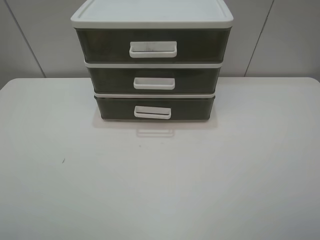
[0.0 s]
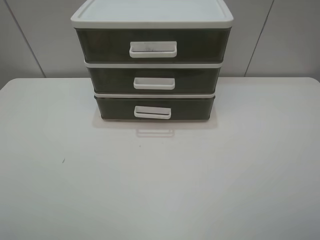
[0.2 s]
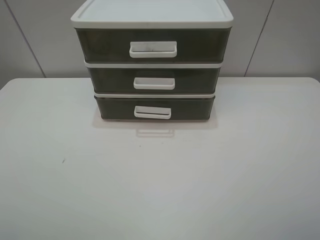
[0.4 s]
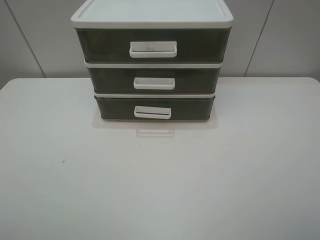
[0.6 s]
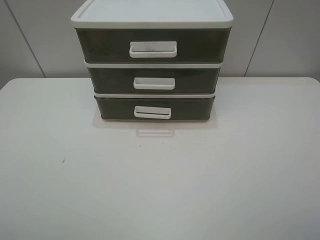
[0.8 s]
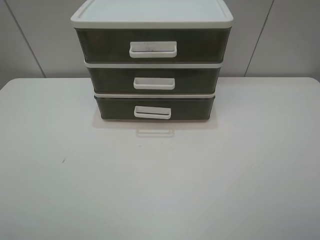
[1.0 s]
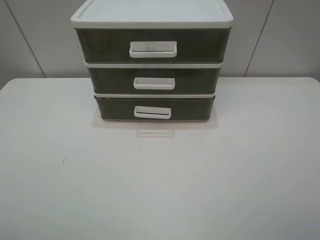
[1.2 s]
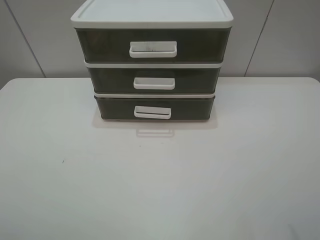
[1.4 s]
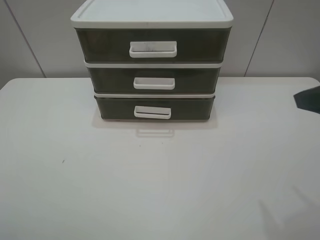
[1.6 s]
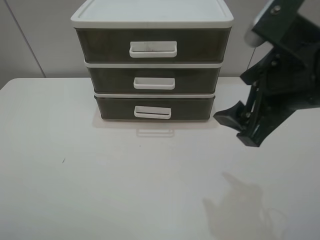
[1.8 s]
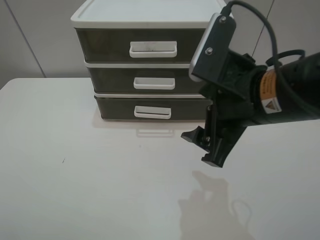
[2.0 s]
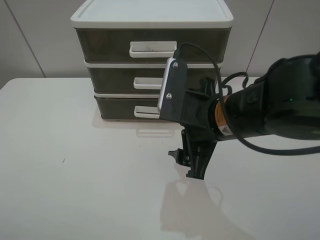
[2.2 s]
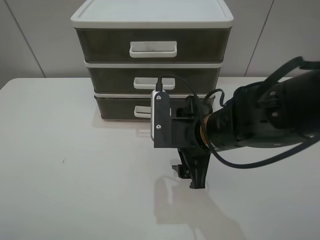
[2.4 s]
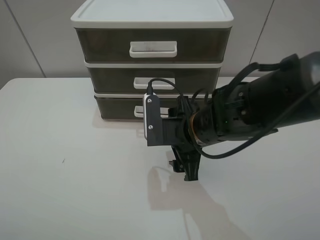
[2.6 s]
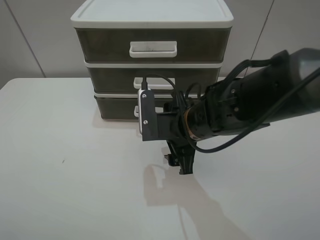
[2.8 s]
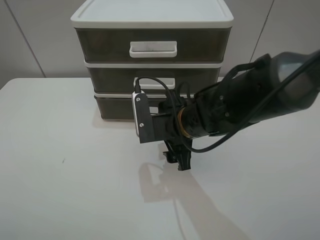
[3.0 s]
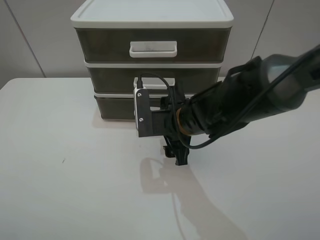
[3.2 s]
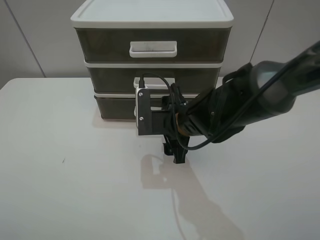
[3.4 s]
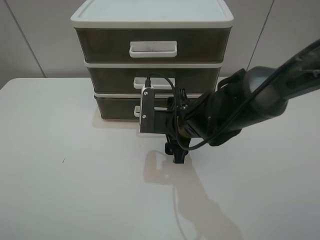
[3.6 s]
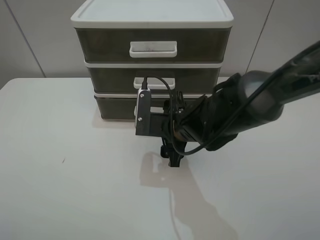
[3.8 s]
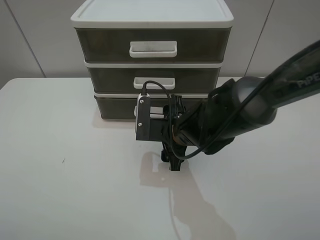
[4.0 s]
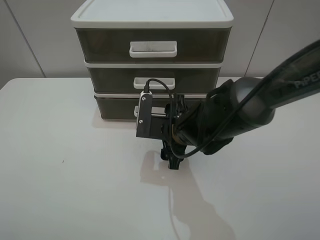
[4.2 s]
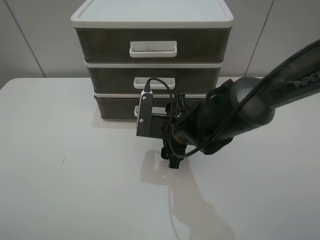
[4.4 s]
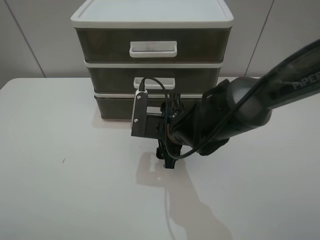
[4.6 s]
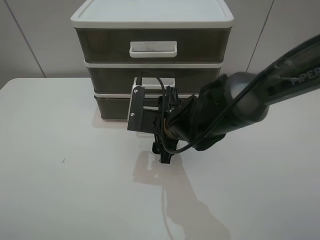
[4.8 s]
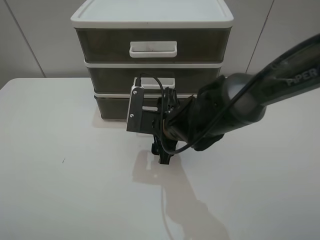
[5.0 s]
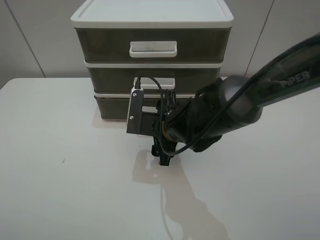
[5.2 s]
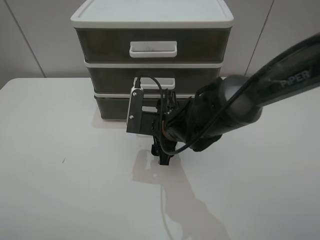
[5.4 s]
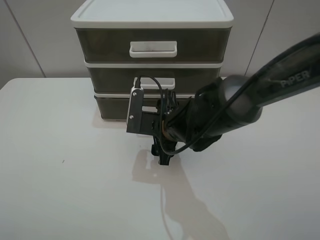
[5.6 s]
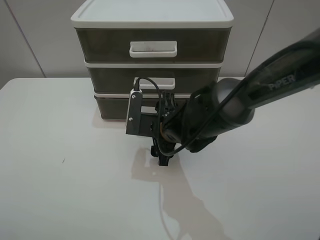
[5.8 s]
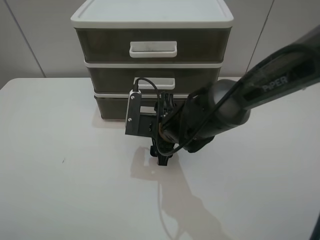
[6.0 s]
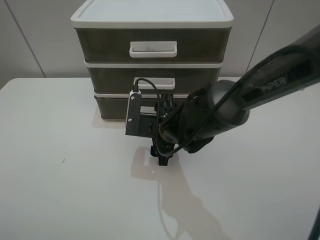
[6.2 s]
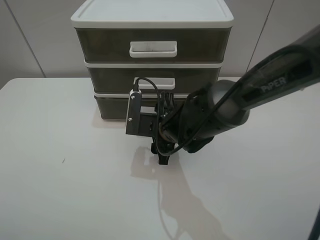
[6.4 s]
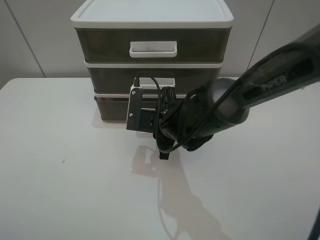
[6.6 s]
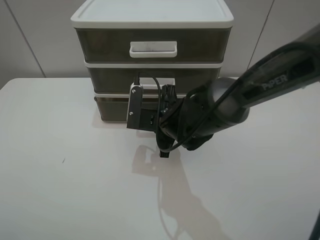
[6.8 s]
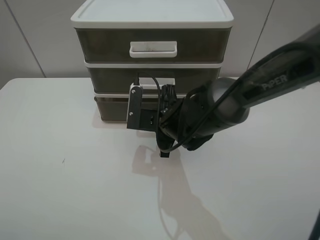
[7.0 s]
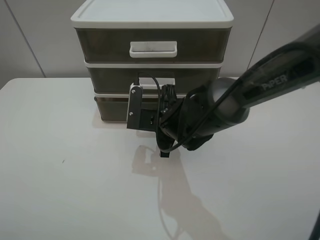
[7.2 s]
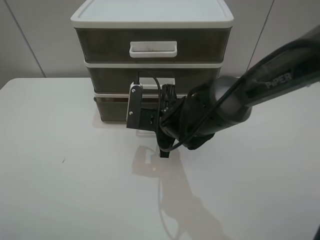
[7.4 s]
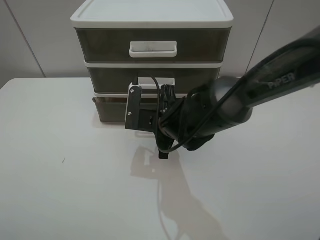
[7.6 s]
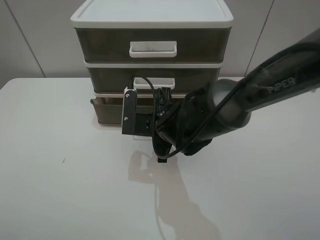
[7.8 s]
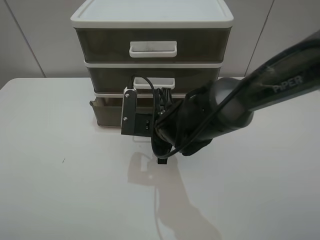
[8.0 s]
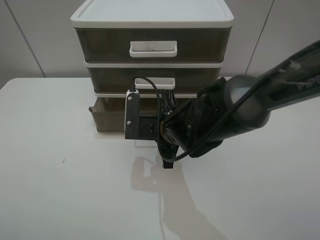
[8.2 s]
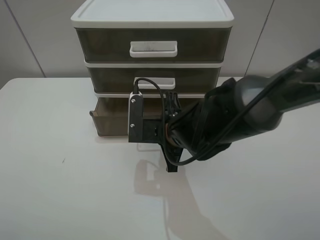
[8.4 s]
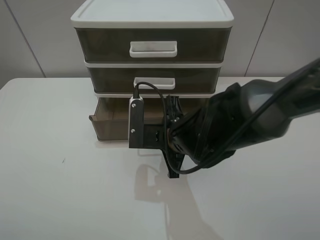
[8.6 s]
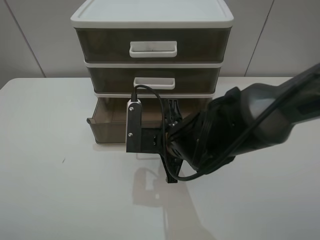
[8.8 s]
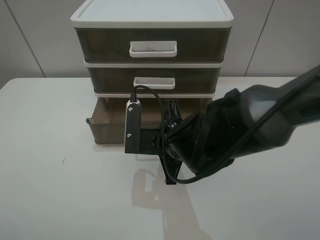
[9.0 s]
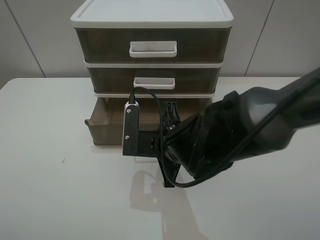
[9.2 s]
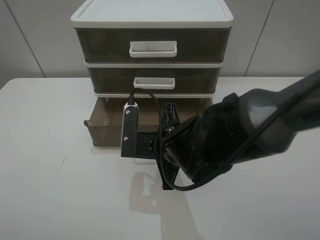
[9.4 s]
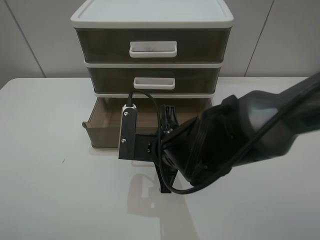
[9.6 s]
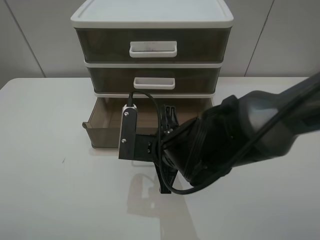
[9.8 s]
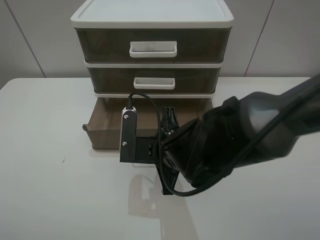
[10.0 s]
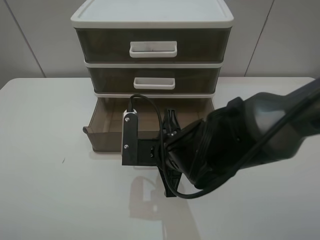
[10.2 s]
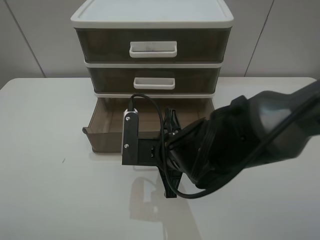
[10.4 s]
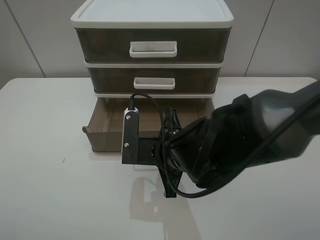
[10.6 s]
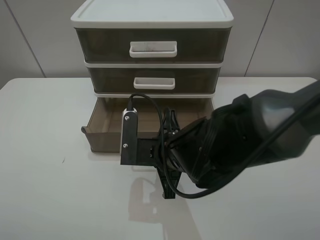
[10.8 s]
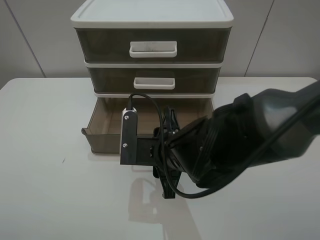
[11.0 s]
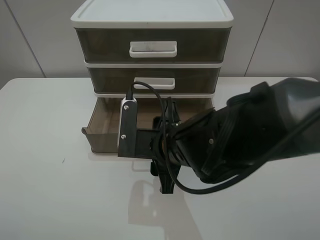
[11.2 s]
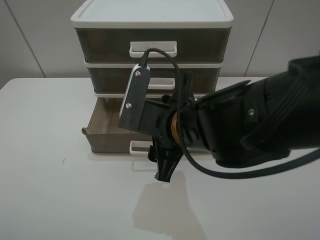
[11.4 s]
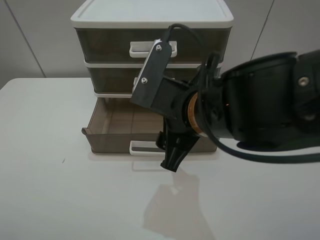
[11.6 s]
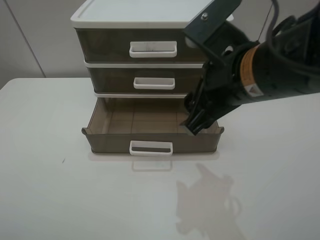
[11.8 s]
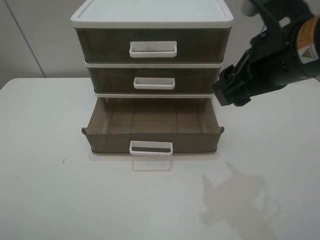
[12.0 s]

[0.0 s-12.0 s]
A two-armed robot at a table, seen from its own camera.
Task of the whole recording: open the bottom drawer.
Step, 0.0 to 7.6 s: Grab the bottom drawer with the right gripper.
Step, 7.8 to 11.2 s: Pull open the drawer with the right gripper.
0.0 to 1.6 s: The right gripper shifts about 15 cm forward.
1.6 to 3.0 s: The right gripper moves to the left, downward and forward, roughly 30 cm.
3.0 to 6.0 s: The grippers move only a little.
6.0 to 7.6 s: The right gripper closes its fingers.
7.6 to 9.0 s: The right gripper goes some 5 cm backward.
9.0 to 10.4 s: There are only small adjustments of the grippers.
10.4 to 12.0 s: The right gripper goes roughly 25 cm upward and to the right, and opens.

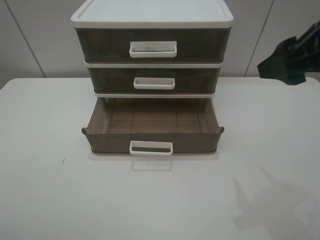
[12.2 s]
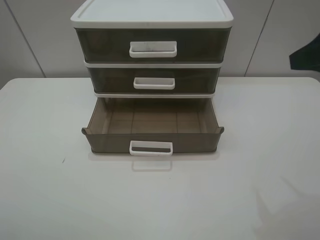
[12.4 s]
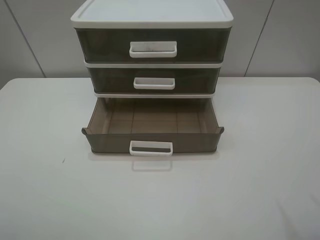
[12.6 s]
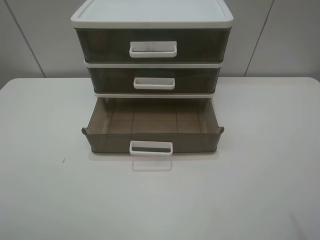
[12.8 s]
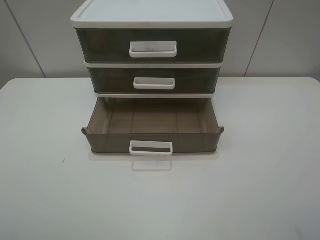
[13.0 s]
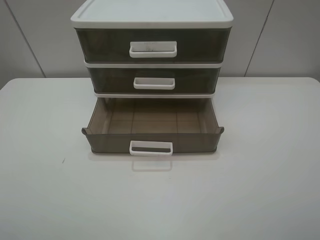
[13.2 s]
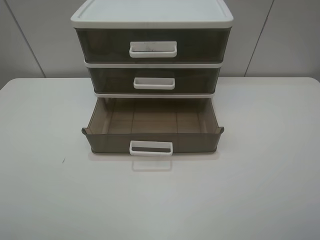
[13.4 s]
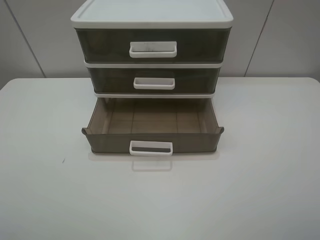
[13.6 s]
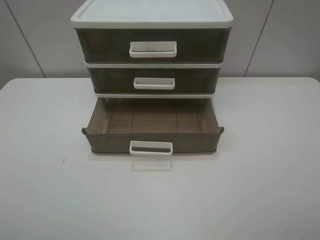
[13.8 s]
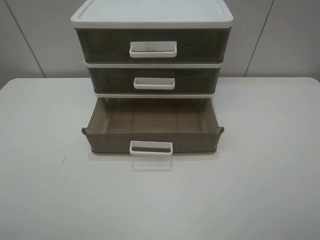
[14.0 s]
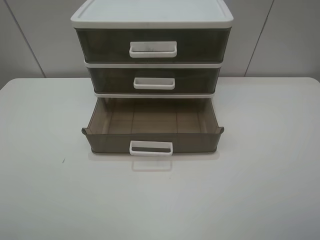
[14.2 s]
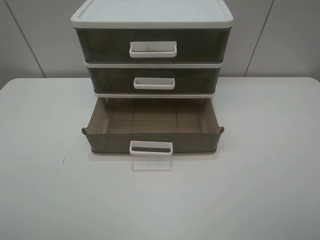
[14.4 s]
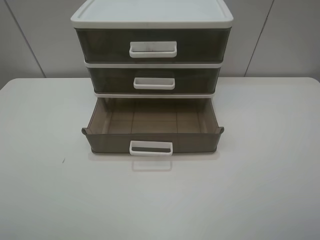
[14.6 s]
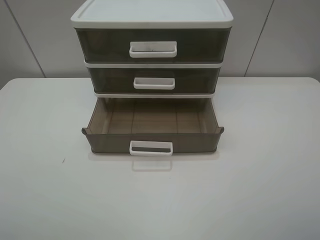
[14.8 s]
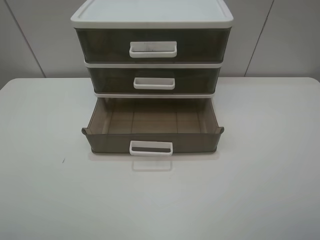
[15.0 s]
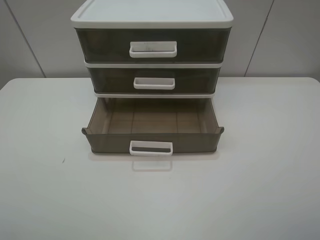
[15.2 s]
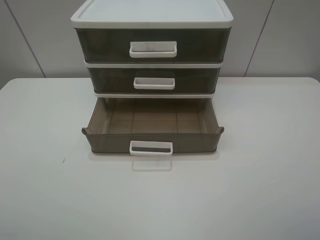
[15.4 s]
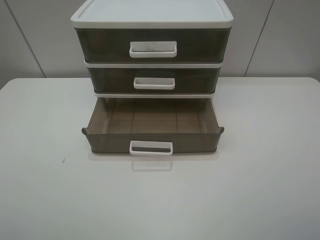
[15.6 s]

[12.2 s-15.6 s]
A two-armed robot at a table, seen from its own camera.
Task of the whole recording: open the bottom drawer.
12.2 to 13.8 s: The right gripper shifts about 20 cm backward.
13.8 to 15.6 s: The two grippers keep their place.
